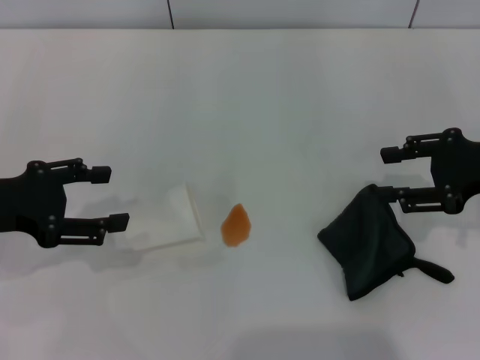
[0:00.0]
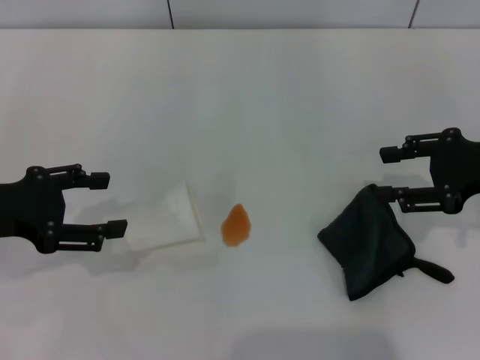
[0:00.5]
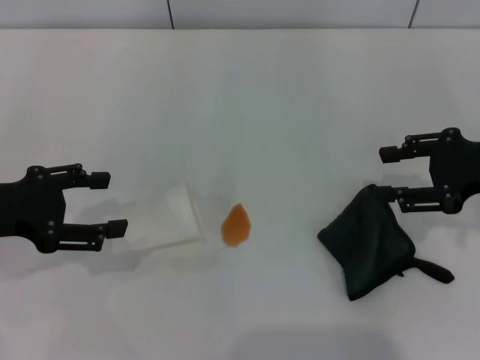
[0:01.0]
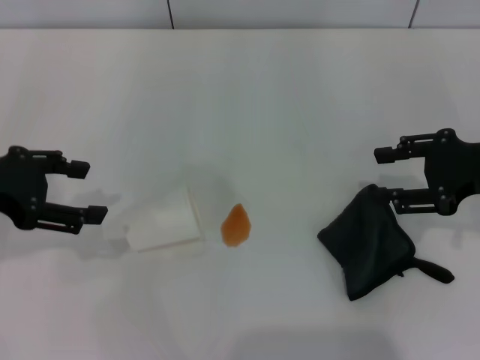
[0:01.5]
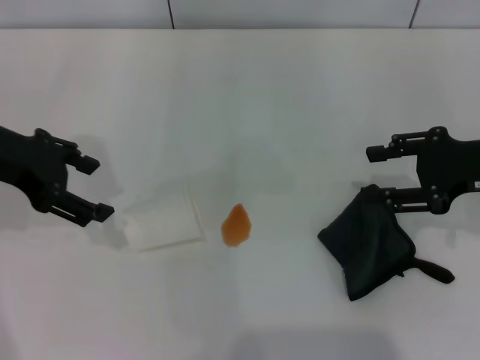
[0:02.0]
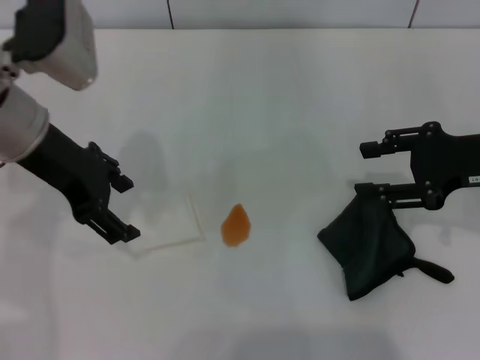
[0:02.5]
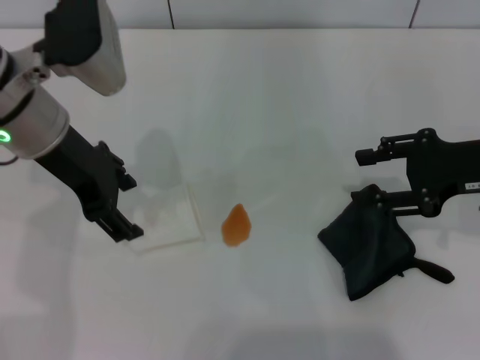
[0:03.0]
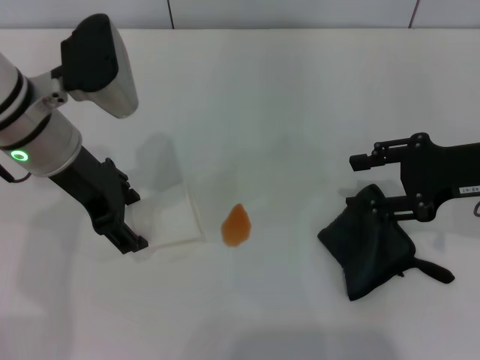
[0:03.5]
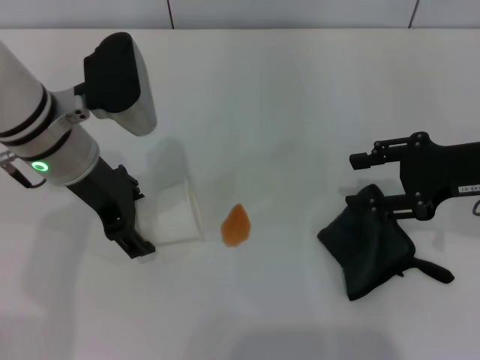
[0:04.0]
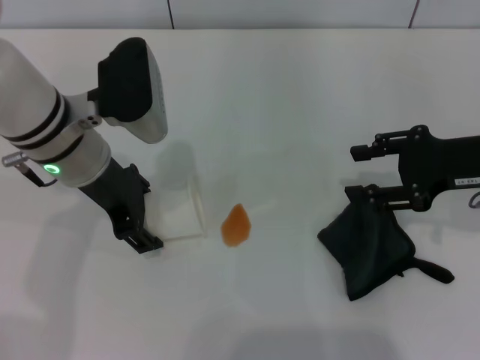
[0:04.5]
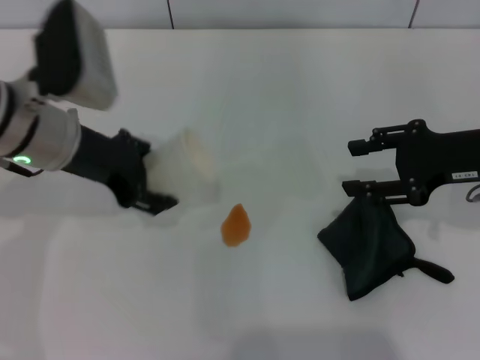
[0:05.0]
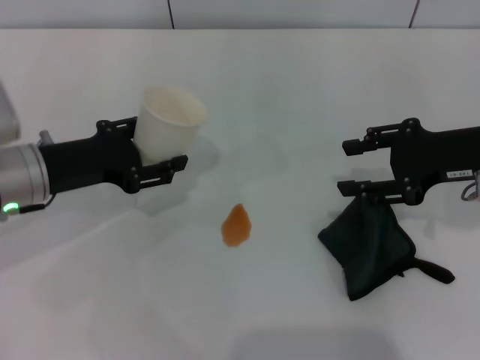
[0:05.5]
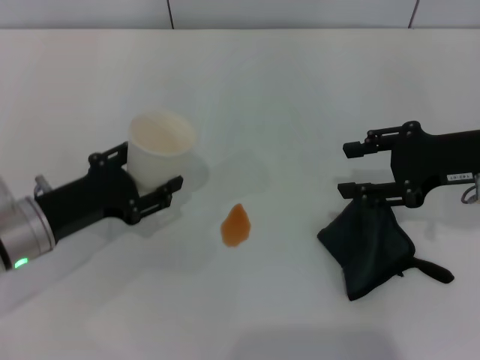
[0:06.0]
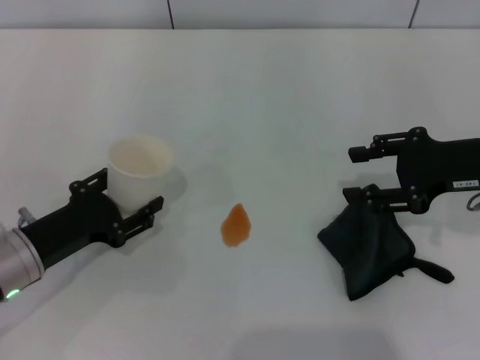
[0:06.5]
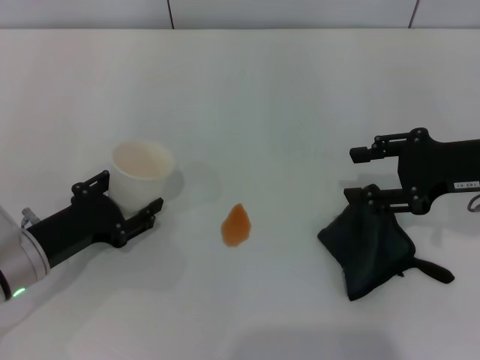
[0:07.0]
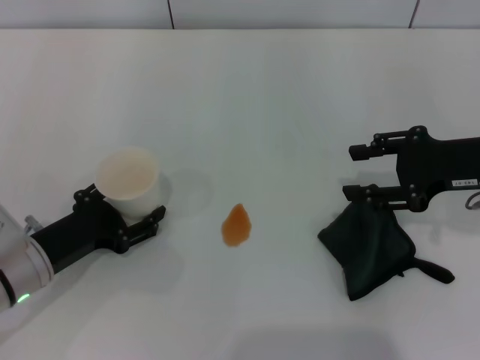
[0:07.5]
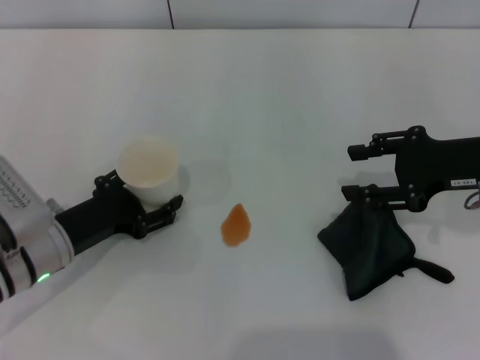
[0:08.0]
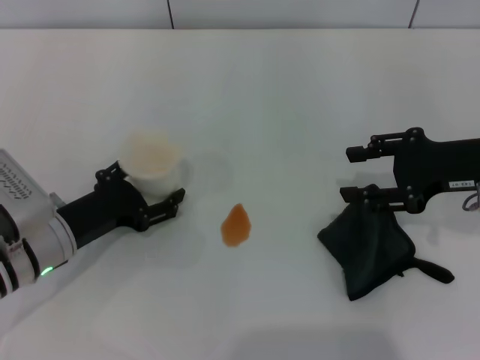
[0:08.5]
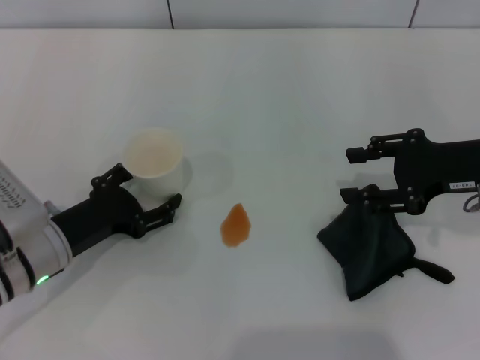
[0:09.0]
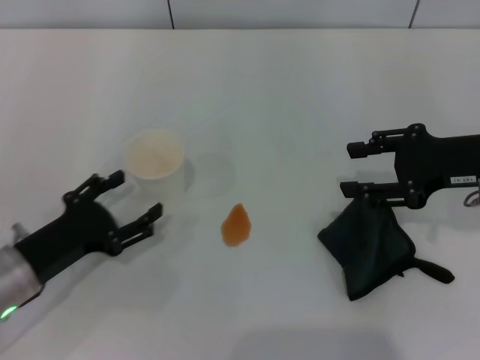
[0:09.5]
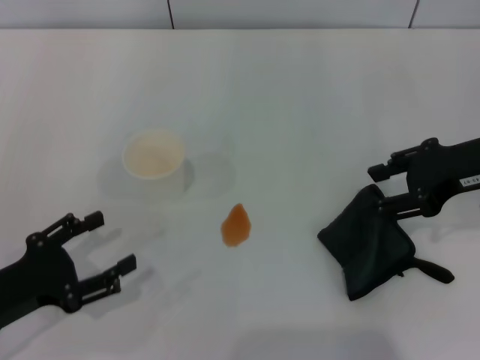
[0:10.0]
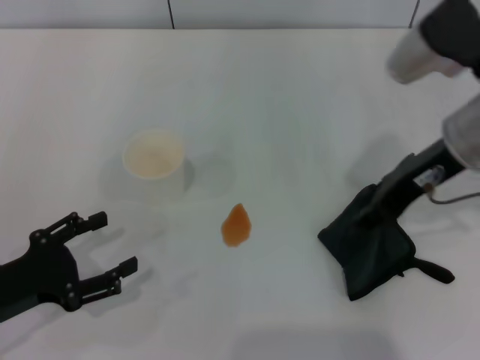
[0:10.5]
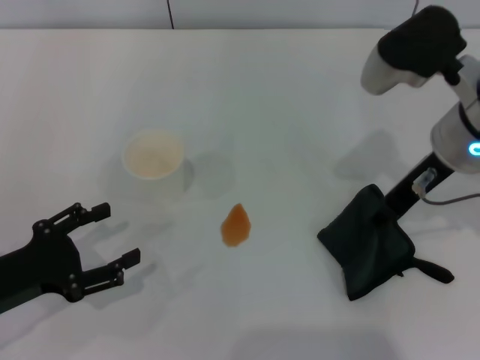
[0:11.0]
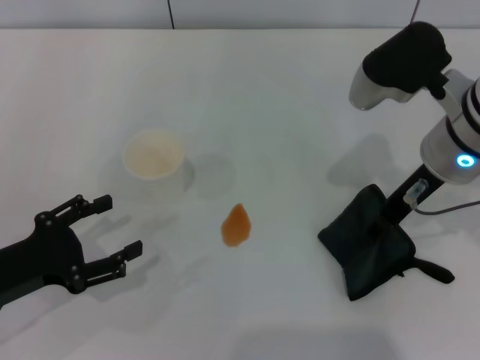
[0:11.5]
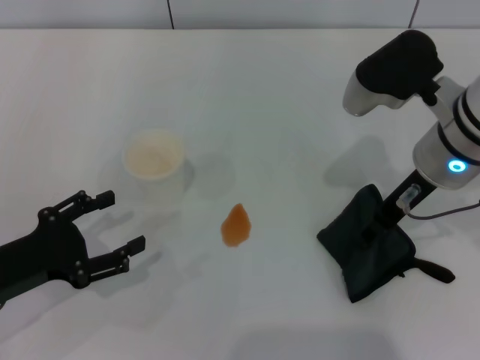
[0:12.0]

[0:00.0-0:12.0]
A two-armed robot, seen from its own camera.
Step, 0:00.0 to 0:04.0: Grasp the paper cup with the left gripper.
Step, 0:05.0 to 0:09.0: Stand the paper cup upright with the left gripper.
0:00.0 to 0:02.0: The left gripper is displaced upward and forward by some 10 cm.
0:02.0 to 0:04.0: The left gripper shifts about 10 cm to the right and downward.
0:04.0 to 0:06.0: The left gripper goes some 15 cm downward, backward and to the left, and closes its fingers.
0:06.0 to 0:08.0: The left gripper opens up.
0:08.0 to 0:10.0: The left gripper shifts about 10 cm backward and to the left.
0:10.0 to 0:12.0: The right gripper travels to the left by about 10 cm.

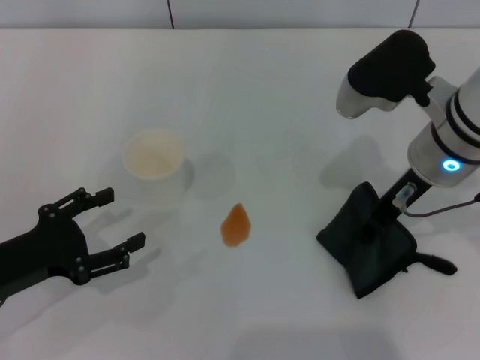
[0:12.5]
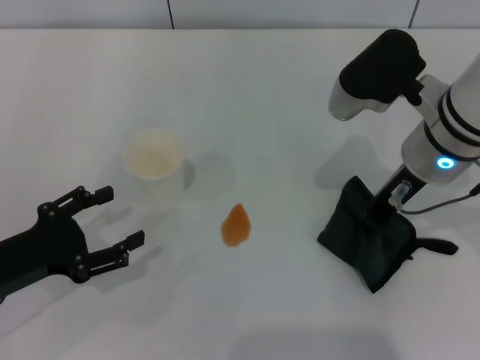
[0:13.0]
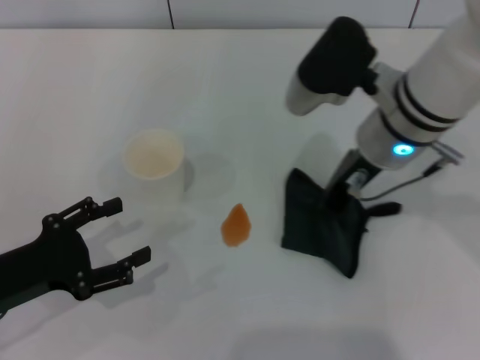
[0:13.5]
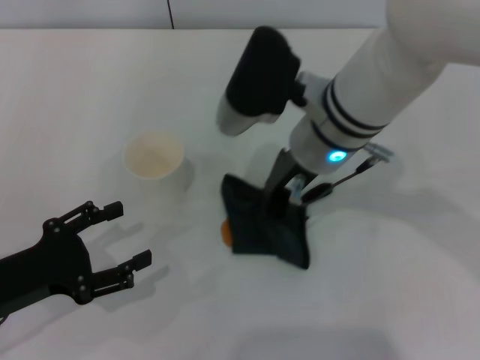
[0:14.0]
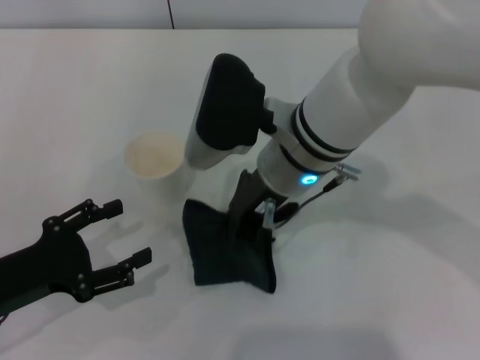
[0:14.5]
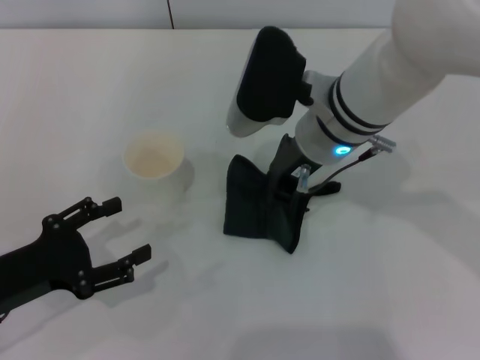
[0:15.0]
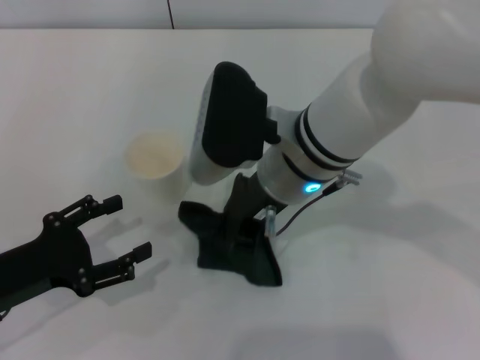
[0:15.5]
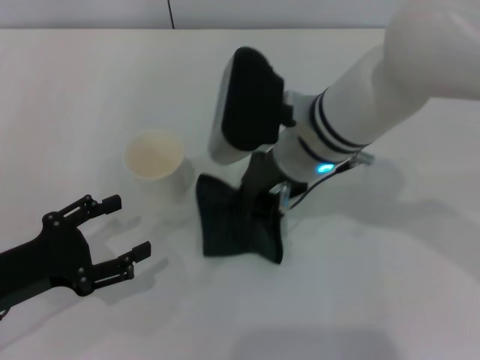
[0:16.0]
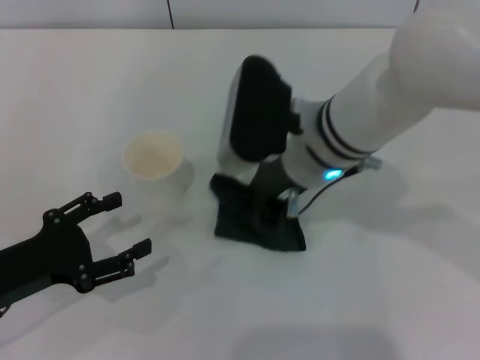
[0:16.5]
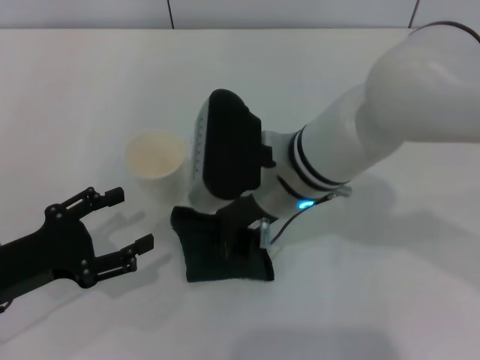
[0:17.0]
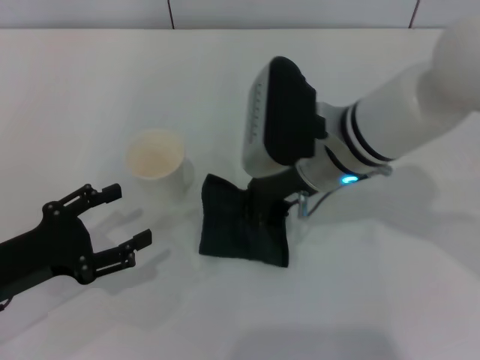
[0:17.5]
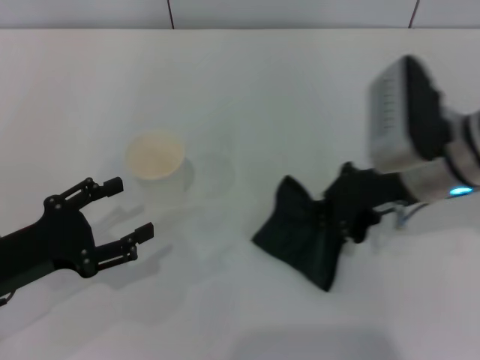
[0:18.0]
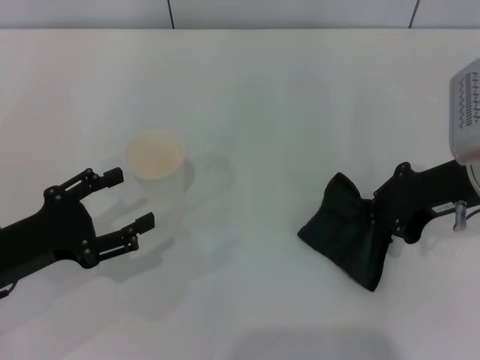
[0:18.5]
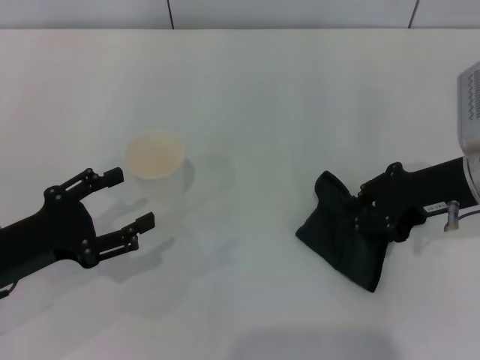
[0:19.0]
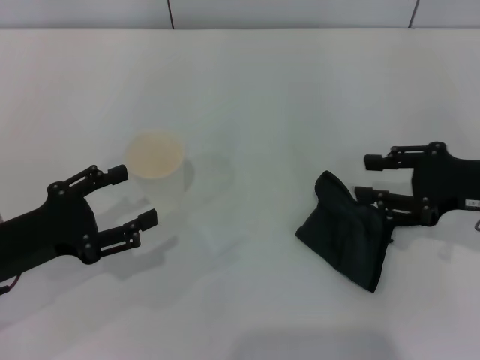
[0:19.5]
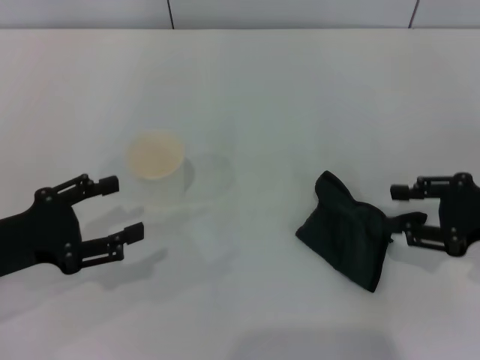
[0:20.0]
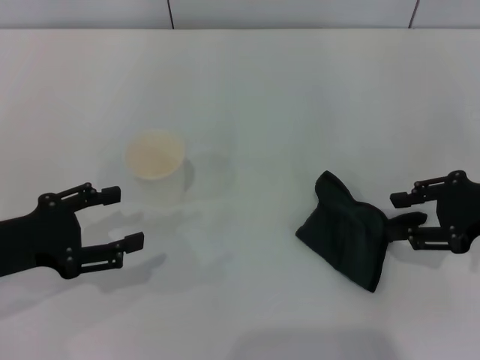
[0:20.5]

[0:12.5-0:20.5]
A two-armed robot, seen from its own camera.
Step, 0:12.5 to 0:17.5: Wipe the stains off the table with the right gripper.
Step, 0:18.0 to 0:19.0: Place the rag on the table with the right gripper.
0:12.5 to 0:14.5: The right gripper heads to the left, covering about 15 cm, and closes up.
0:14.5 to 0:16.5: There are only small adjustments of the grippers.
0:16.5 to 0:18.5: The right gripper shifts approximately 15 cm to the right.
0:18.5 to 0:20.5: The right gripper heads to the right, covering some 5 cm, and opens up.

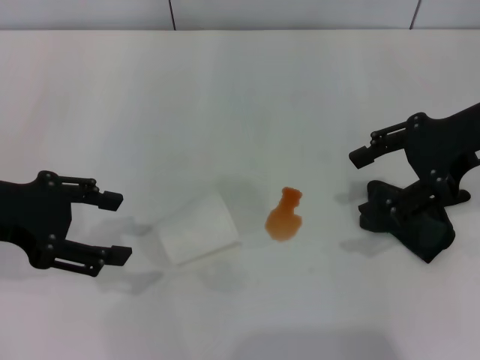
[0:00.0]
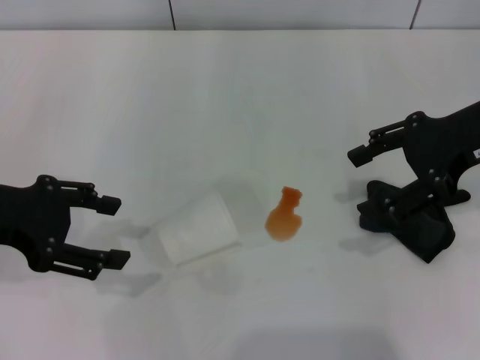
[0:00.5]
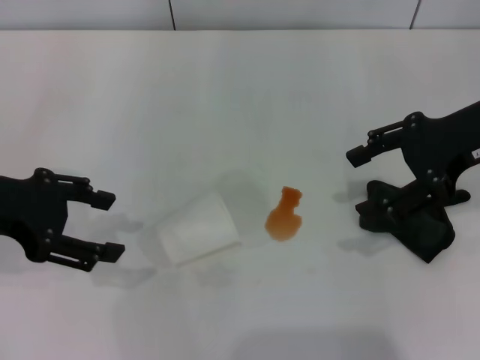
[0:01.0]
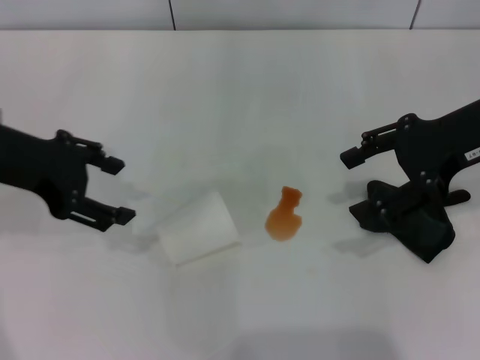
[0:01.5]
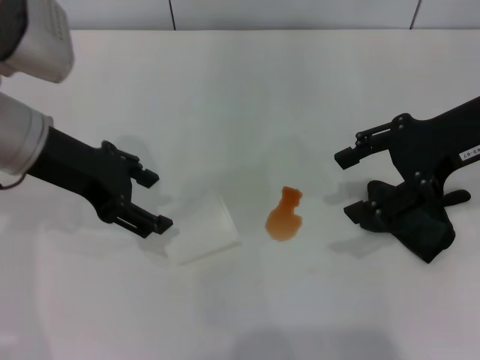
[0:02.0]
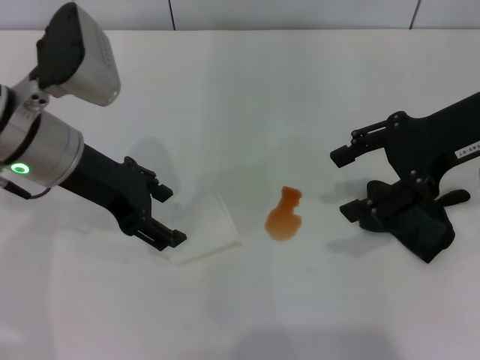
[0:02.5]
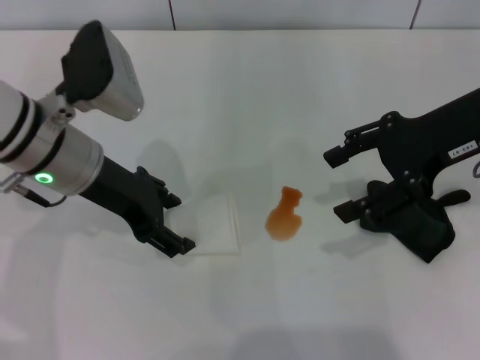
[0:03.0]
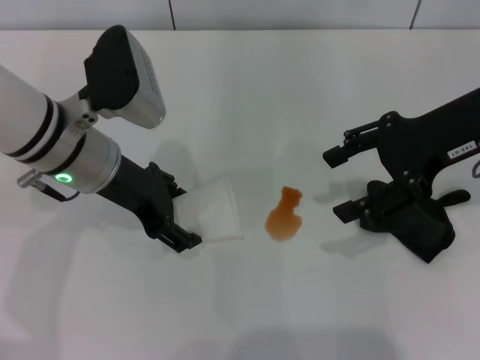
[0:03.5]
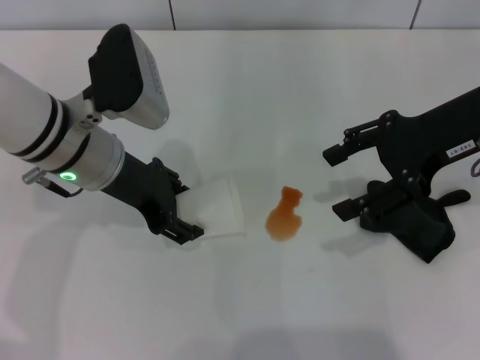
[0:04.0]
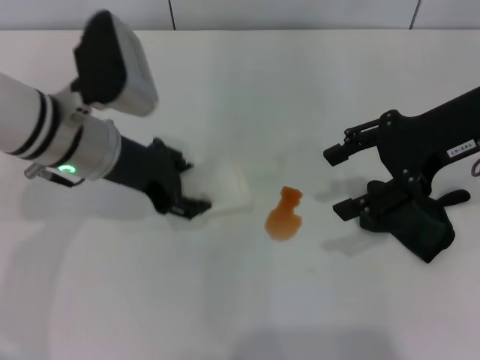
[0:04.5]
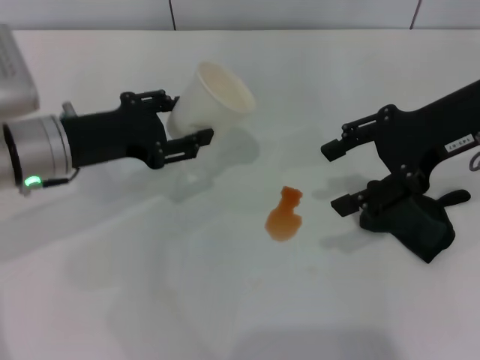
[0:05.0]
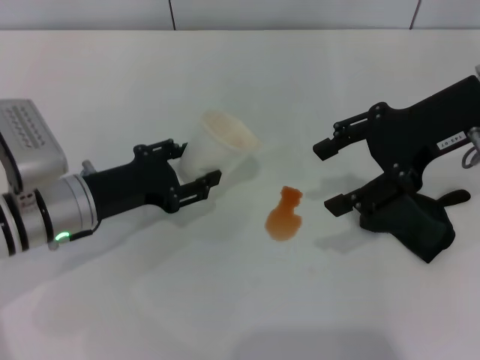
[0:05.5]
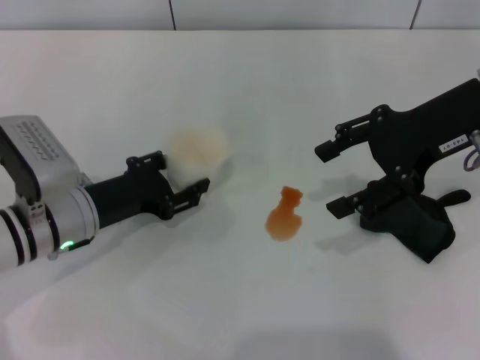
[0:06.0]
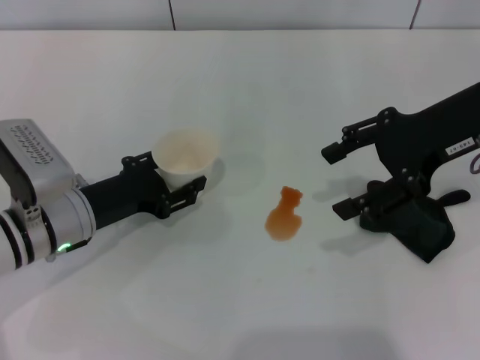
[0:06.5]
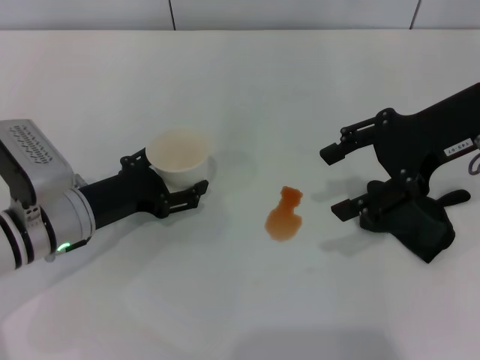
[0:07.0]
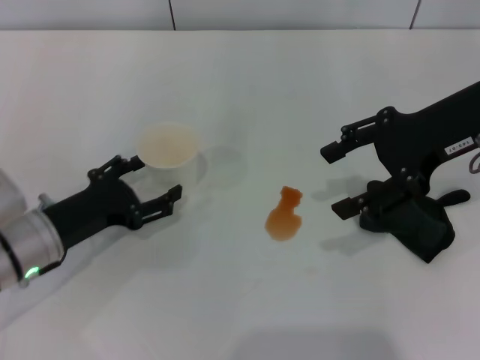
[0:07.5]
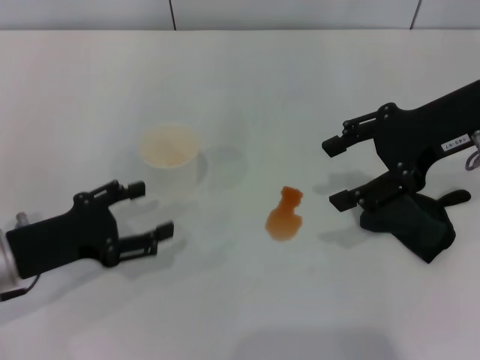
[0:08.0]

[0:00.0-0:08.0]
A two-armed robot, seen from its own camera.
Step, 0:00.0 to 0:04.0: Grasp the paper cup with the left gripper.
Step, 0:04.5 to 0:07.5: Stand the paper cup upright with the left gripper.
0:00.0 to 0:02.0: The left gripper heads to the right and forward, covering some 10 cm.
0:02.0 to 0:04.0: The left gripper shifts roughly 5 cm to the right.
0:04.0 to 0:06.0: The left gripper goes approximately 10 cm downward and to the left, and closes its fingers.
0:06.0 to 0:08.0: The left gripper moves to the left and backward, some 10 cm, and opens up.
